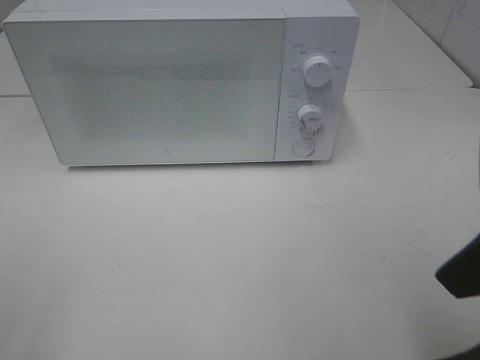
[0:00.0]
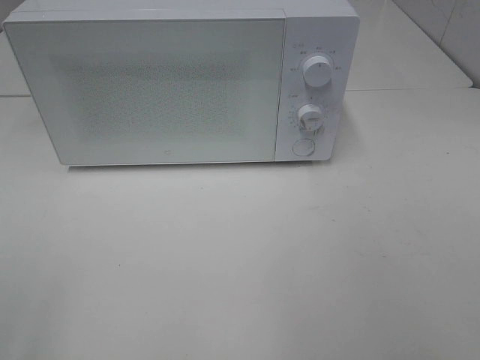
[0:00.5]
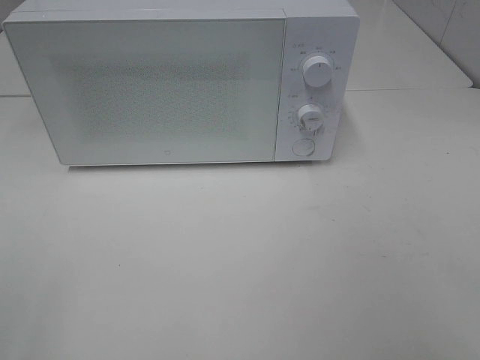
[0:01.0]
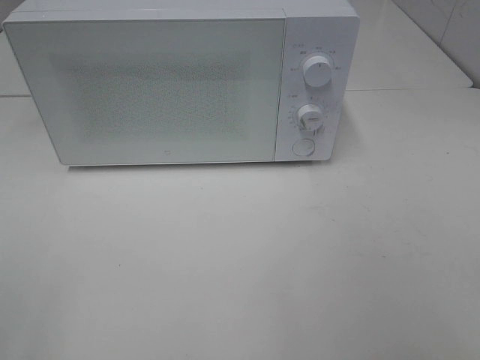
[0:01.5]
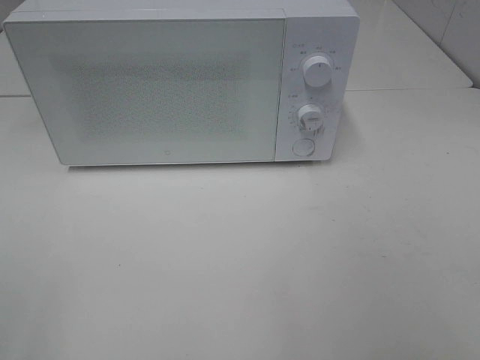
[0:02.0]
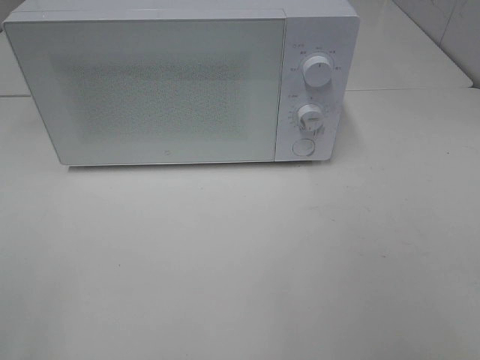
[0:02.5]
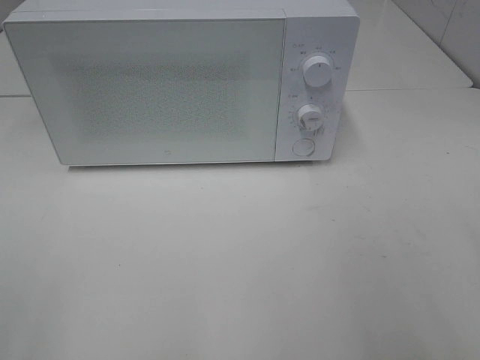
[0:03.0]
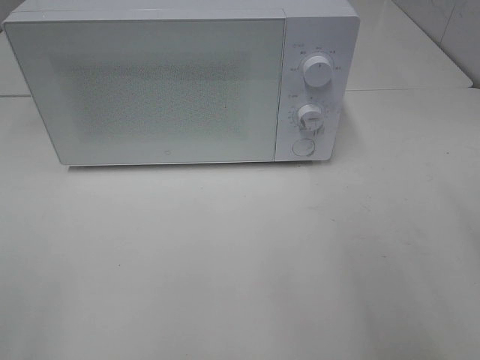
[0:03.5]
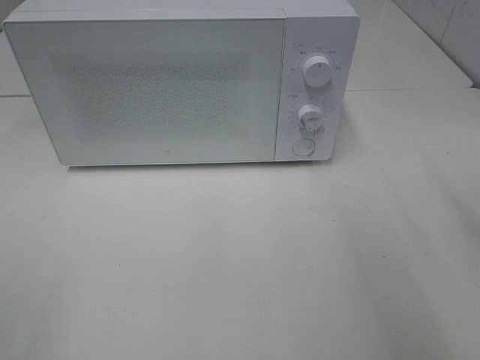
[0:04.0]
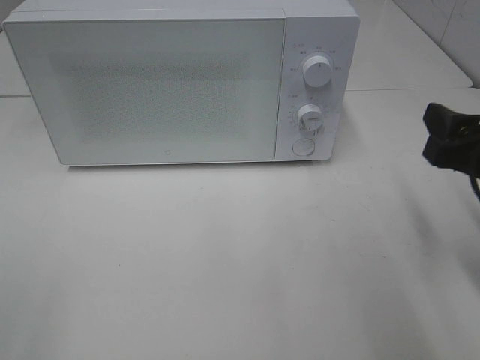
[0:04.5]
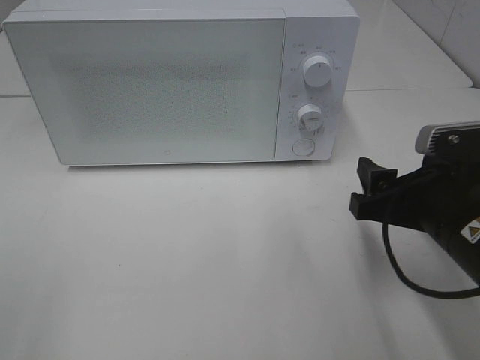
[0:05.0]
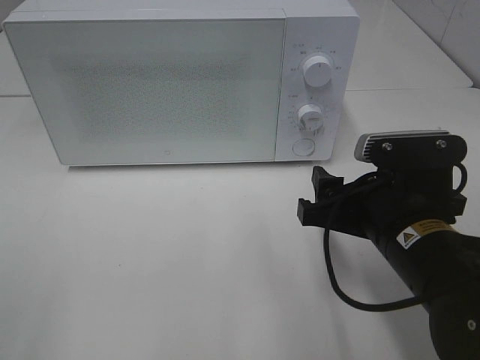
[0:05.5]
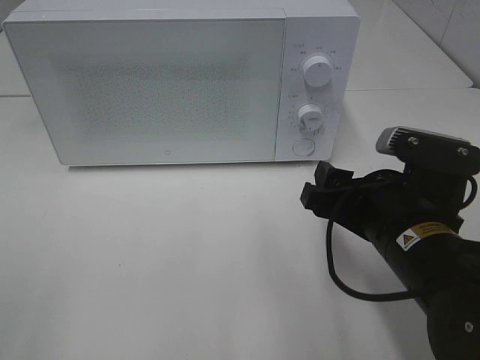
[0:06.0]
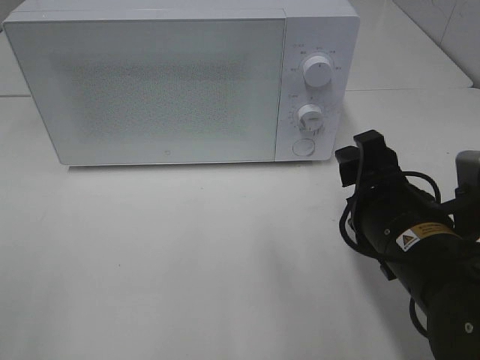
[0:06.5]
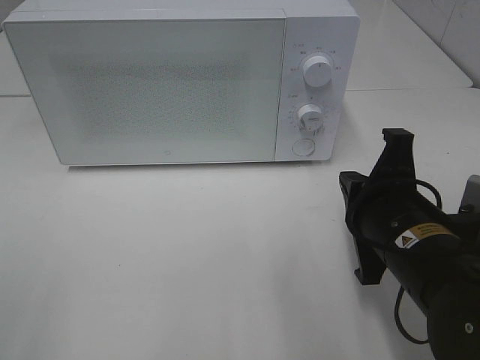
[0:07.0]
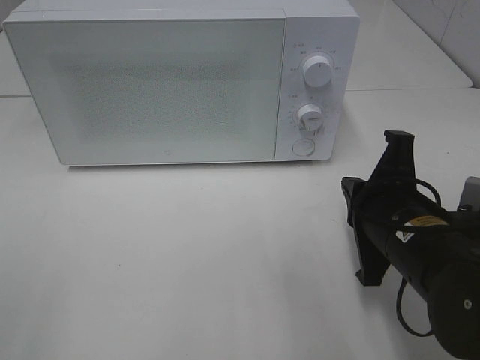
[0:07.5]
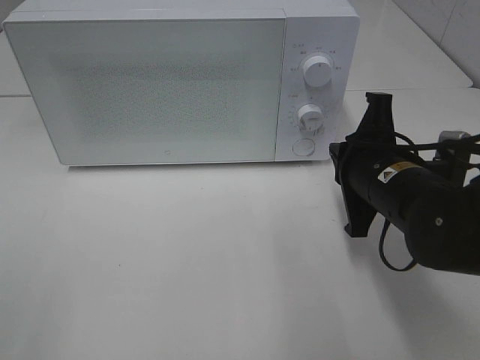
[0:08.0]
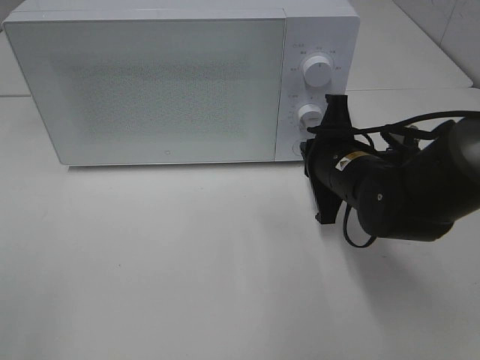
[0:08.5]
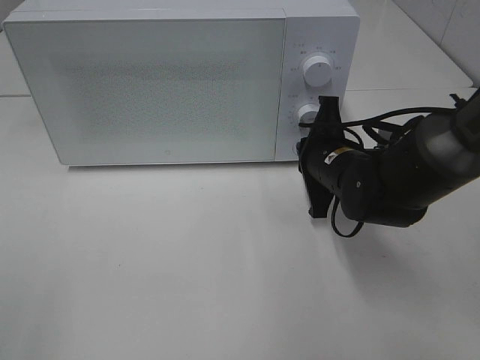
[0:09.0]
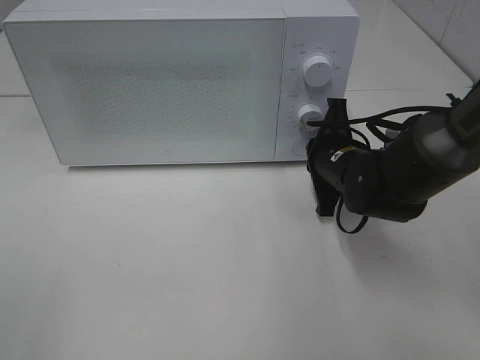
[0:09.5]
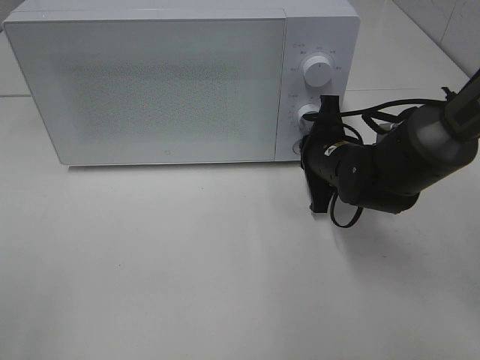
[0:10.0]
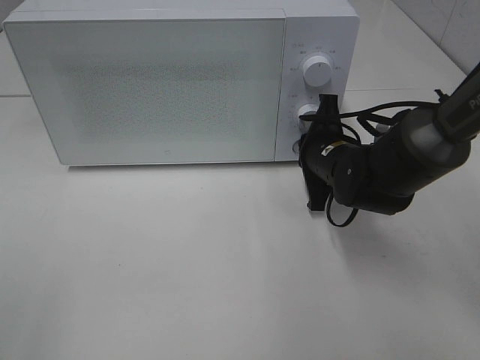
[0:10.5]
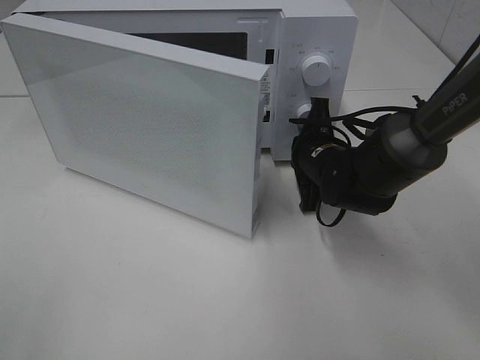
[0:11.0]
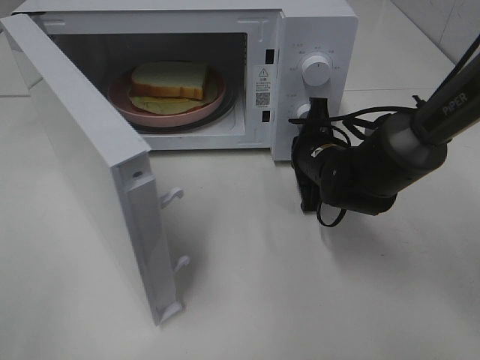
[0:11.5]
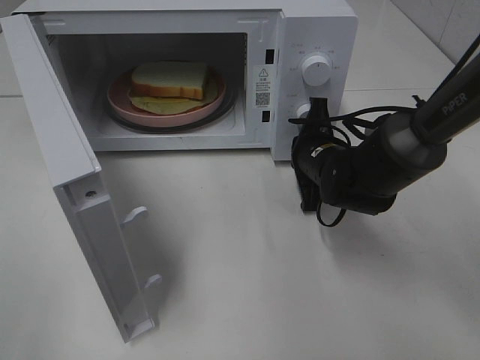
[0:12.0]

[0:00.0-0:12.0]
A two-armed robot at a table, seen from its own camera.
Task of the whole recording: Heat Sandwich.
0:00.0 to 0:02.0: The right gripper heads to the right and backward, covering roughly 15 cm.
0:04.0 to 0:06.0: The right gripper goes some 15 cm to the left and downward.
0:06.0 to 0:08.0: The right gripper heads forward, covering some 5 cm, and closes.
0:08.0 to 0:10.0: The right gripper goes roughly 10 cm forward.

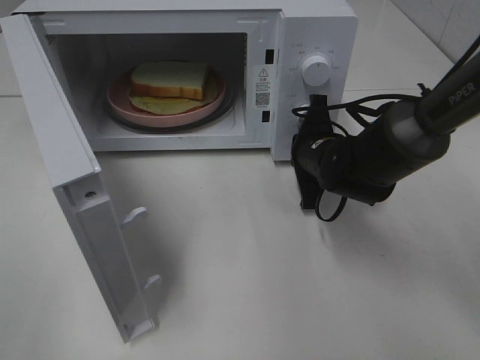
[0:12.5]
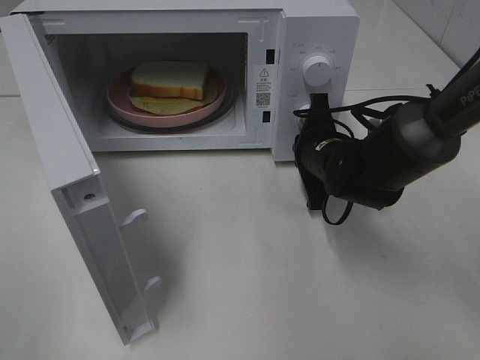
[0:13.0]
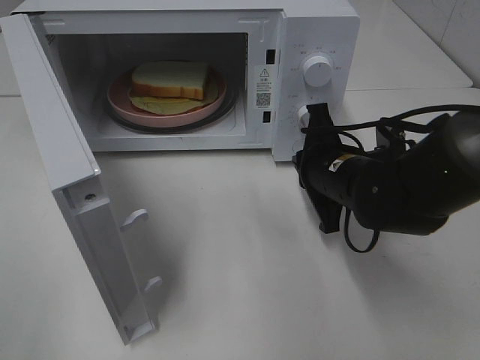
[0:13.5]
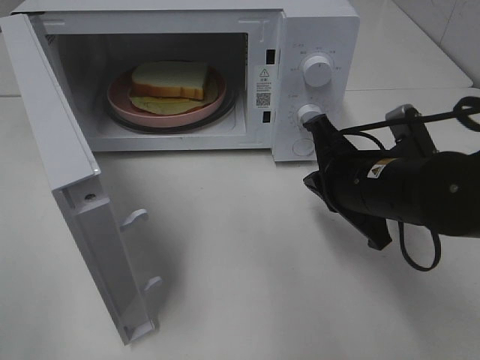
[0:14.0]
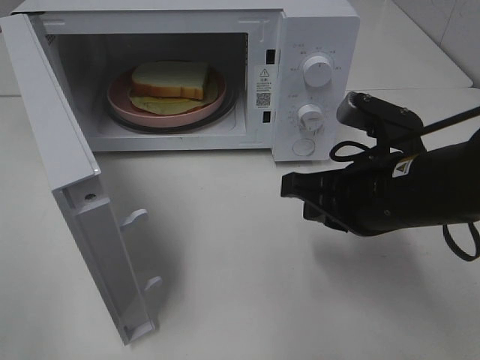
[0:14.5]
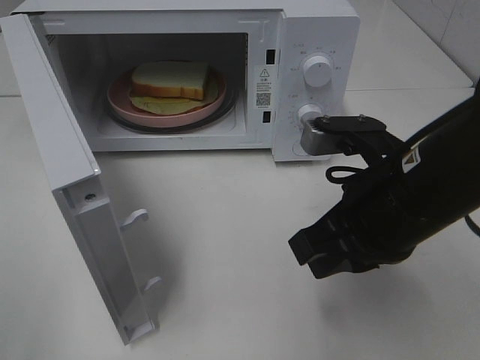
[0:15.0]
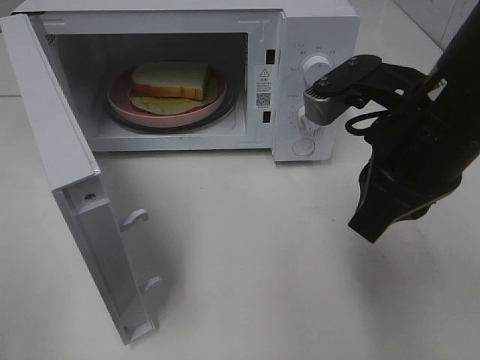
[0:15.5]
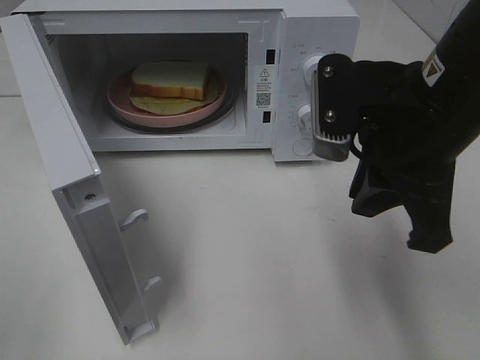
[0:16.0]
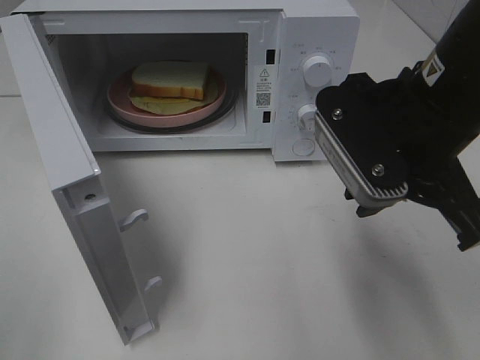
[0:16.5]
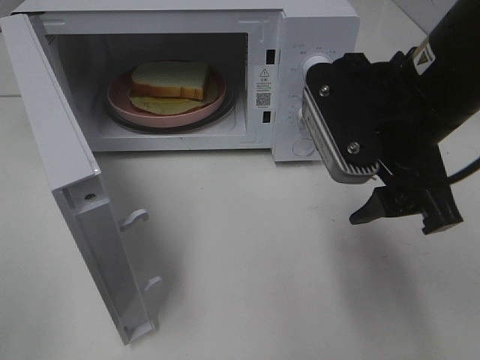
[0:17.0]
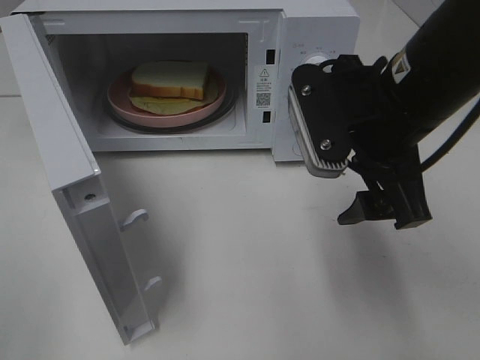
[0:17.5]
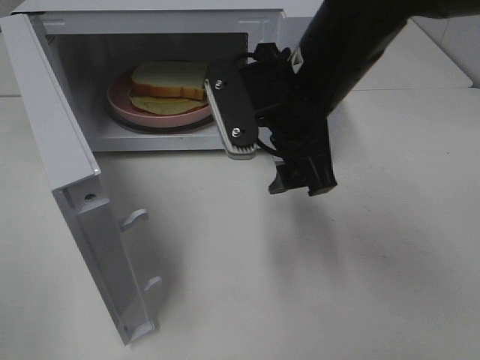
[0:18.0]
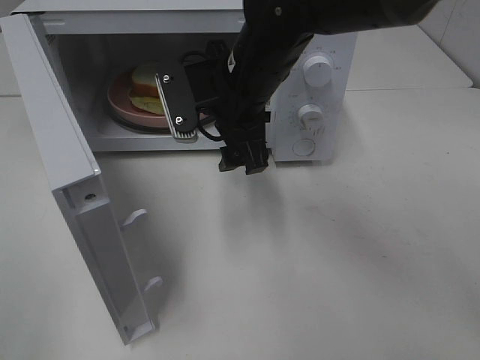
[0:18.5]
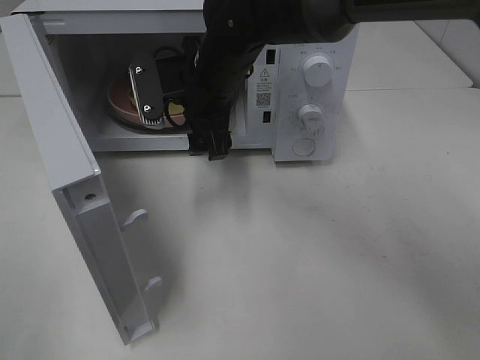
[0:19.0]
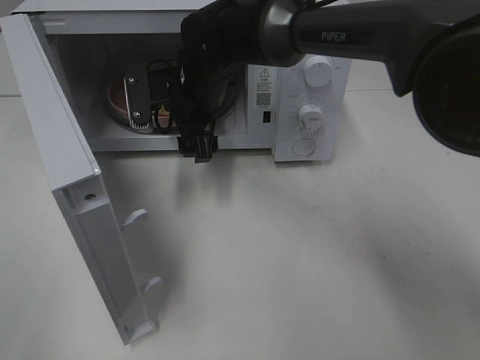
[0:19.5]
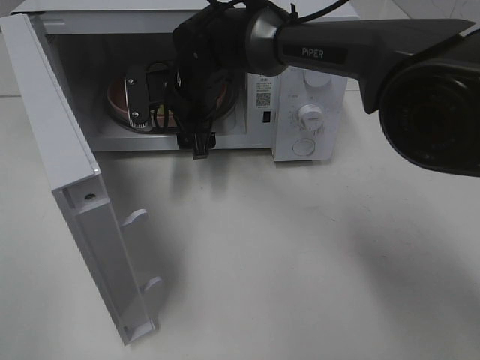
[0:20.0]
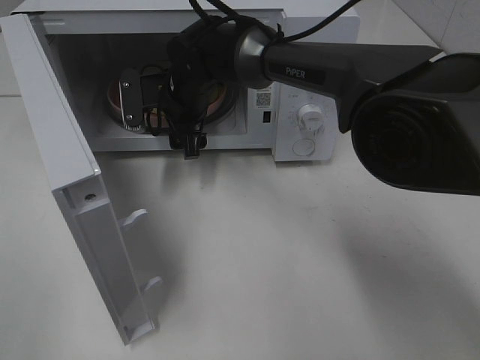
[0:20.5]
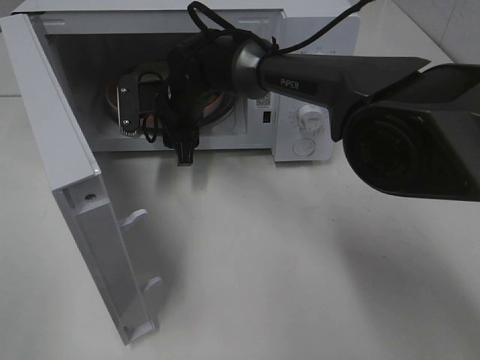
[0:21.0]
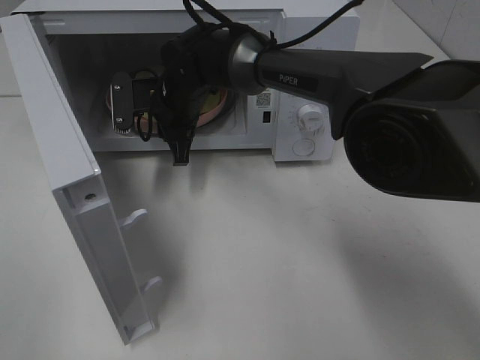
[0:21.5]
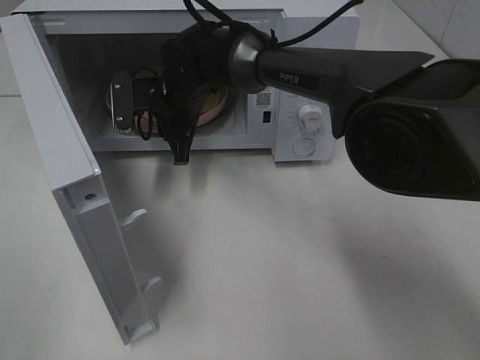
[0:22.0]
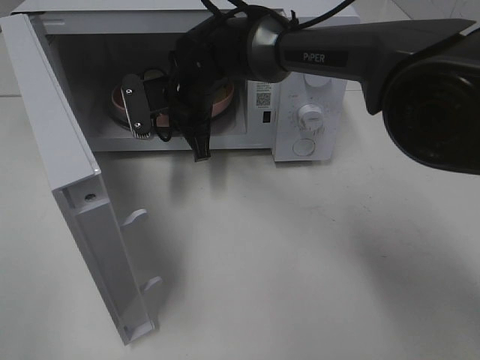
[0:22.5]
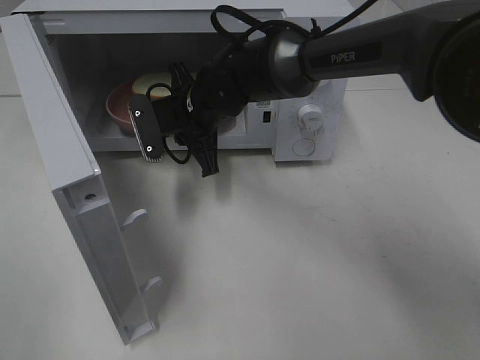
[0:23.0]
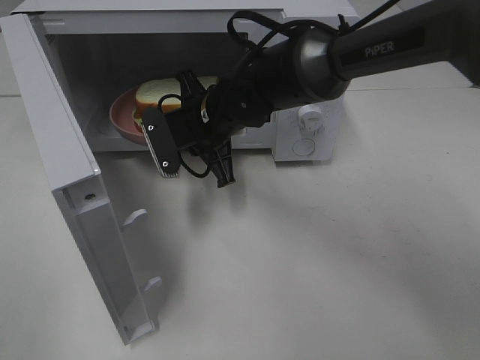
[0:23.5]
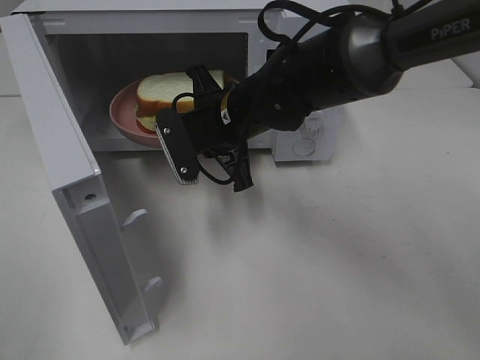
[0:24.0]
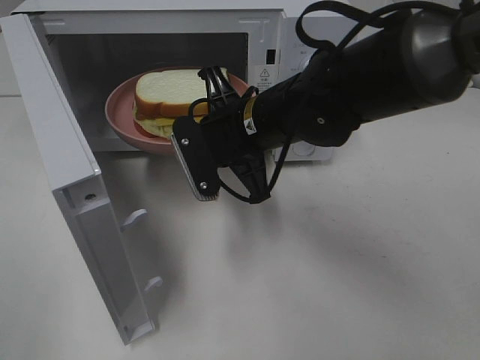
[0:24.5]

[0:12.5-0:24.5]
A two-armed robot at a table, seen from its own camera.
Task of the whole recording: Heat Sandwich.
Step, 0:13.5 to 0:22.0: Right hand: grab the plate with the sandwich.
0:12.5 to 0:14.5: The right gripper shifts roughly 15 cm backward and upward.
0:14.5 to 0:16.5: The right gripper travels upward by about 10 cm.
0:16.5 to 0:18.5: The right gripper travels to the left and forward by roughly 20 cm, and opens up.
0:18.5 to 0:20.5: The right gripper shifts some 15 cm forward, to the left and downward.
0:20.5 to 0:22.5: The right gripper closes its fingers.
0:22.5 to 0:24.5: The right gripper moves backward and to the right, some 15 cm.

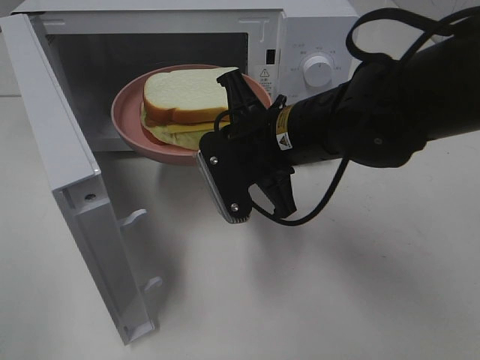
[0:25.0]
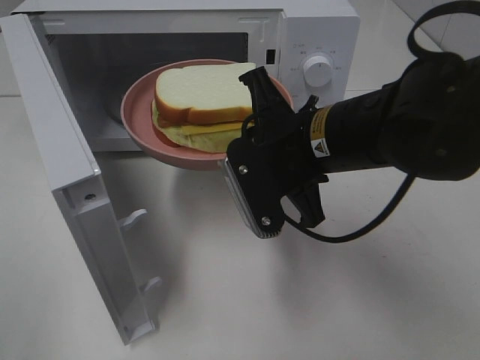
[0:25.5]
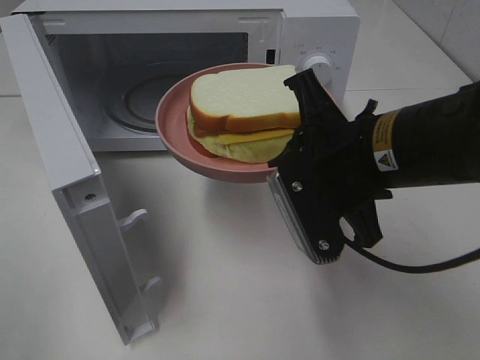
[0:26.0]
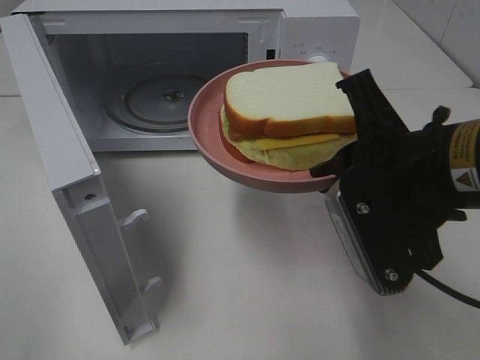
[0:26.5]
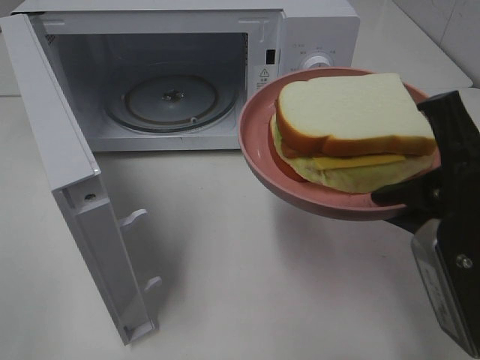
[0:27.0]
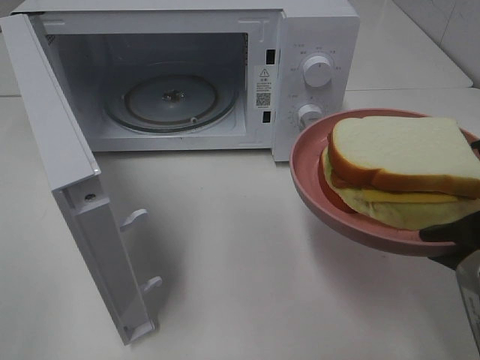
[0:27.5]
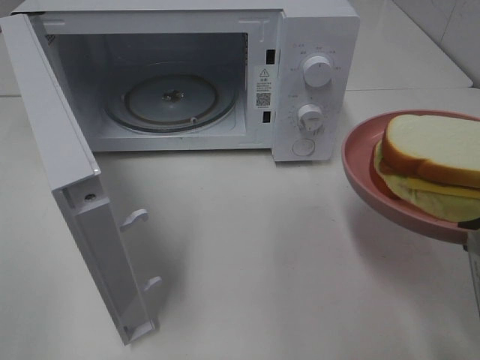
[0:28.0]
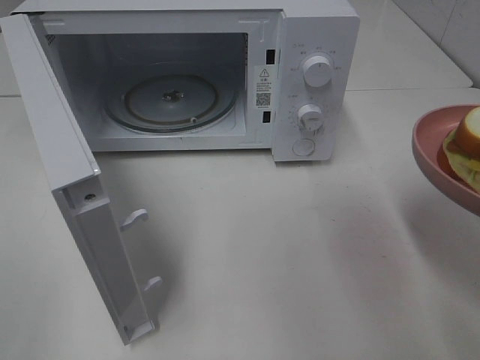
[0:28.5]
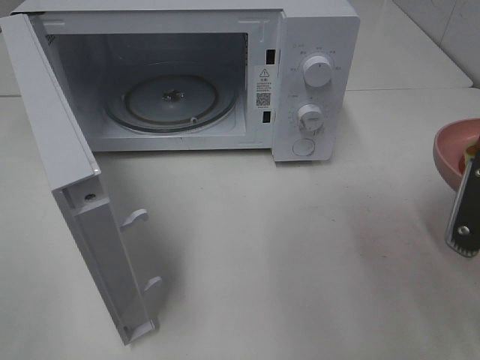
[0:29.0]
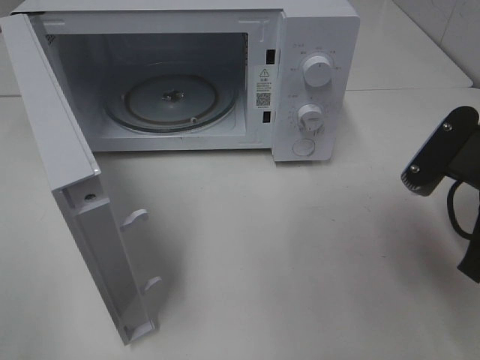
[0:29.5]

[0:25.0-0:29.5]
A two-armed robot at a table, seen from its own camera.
Task of the whole recording: Heat Sandwich.
0:25.0 to 0:27.0: The right gripper moves backward and to the right, about 20 cm.
0:27.0 to 0:29.5: The right gripper shifts some 5 cm forward.
